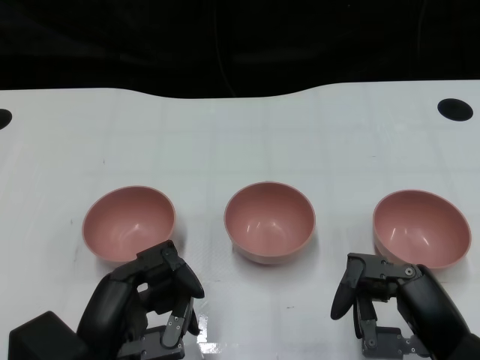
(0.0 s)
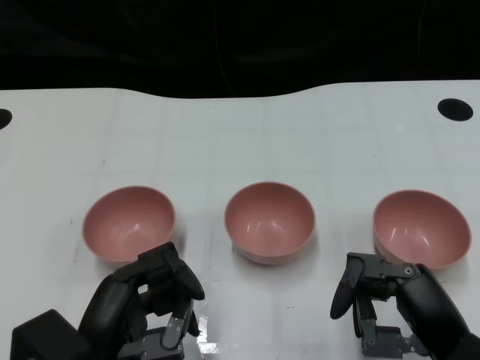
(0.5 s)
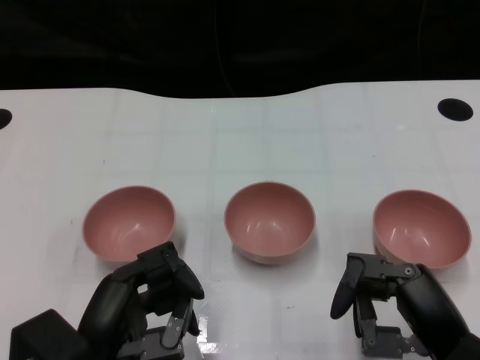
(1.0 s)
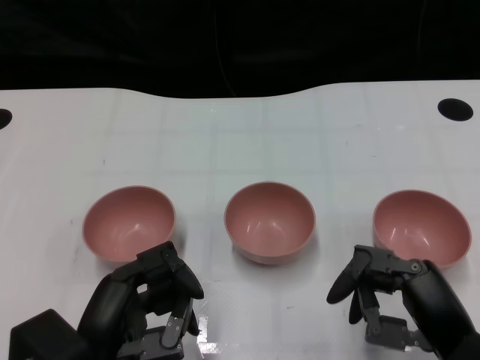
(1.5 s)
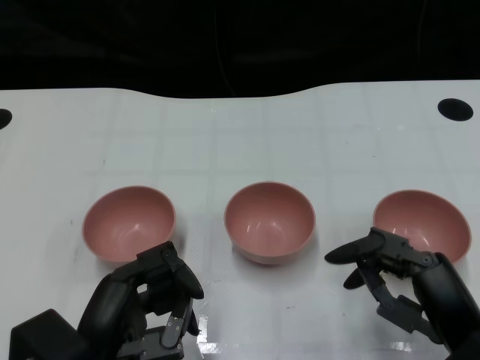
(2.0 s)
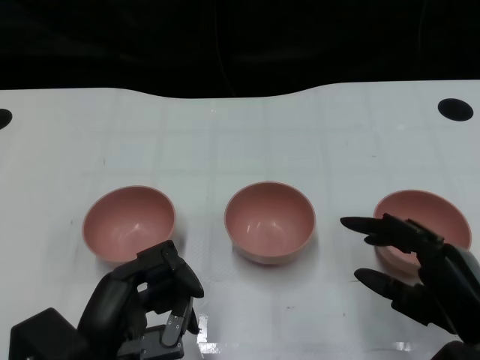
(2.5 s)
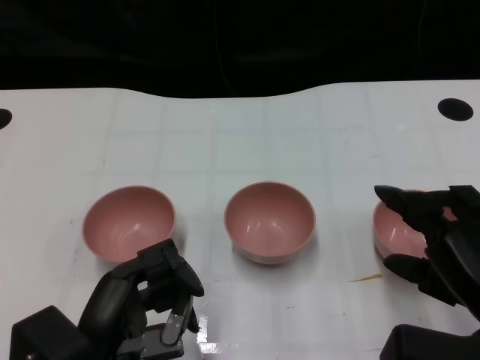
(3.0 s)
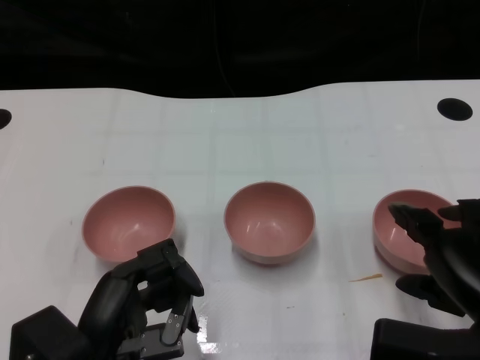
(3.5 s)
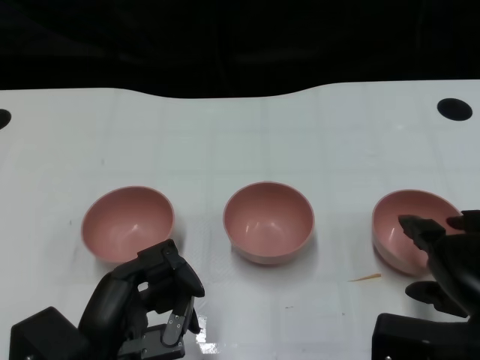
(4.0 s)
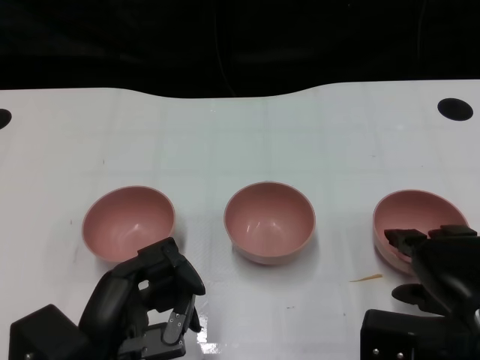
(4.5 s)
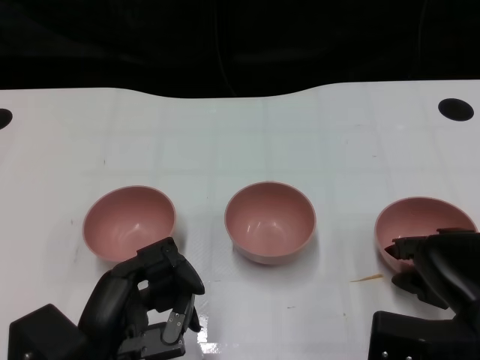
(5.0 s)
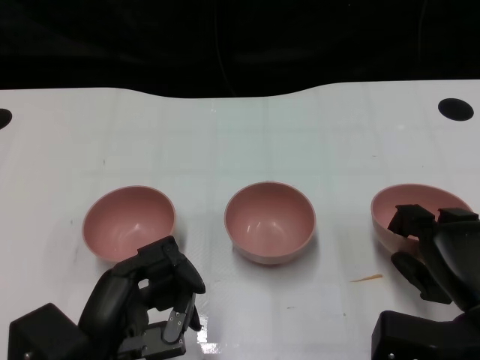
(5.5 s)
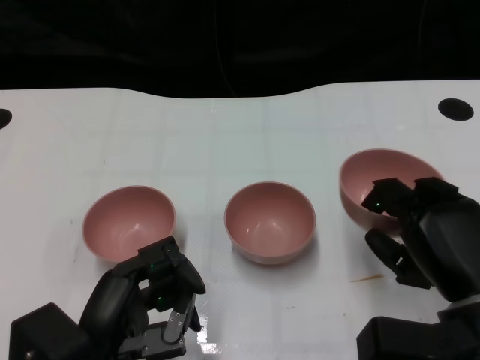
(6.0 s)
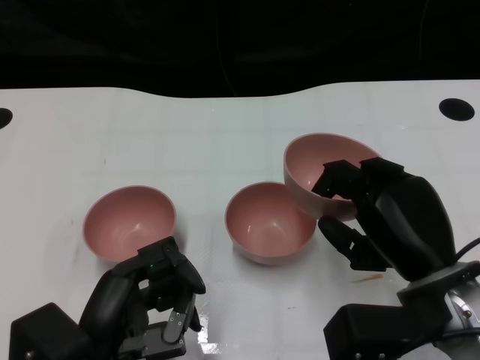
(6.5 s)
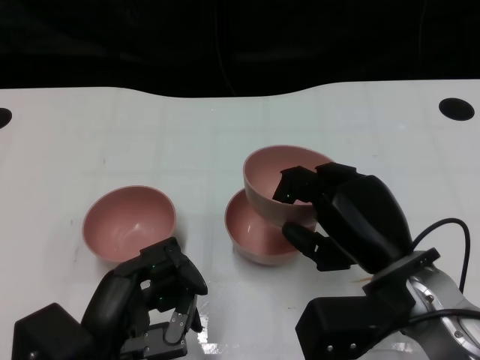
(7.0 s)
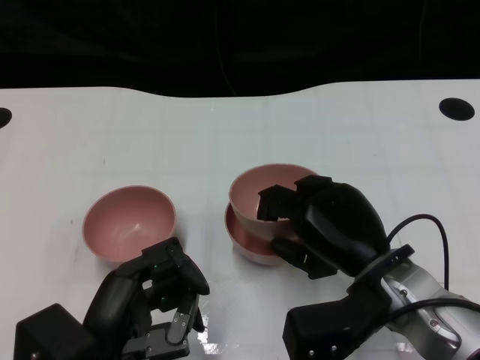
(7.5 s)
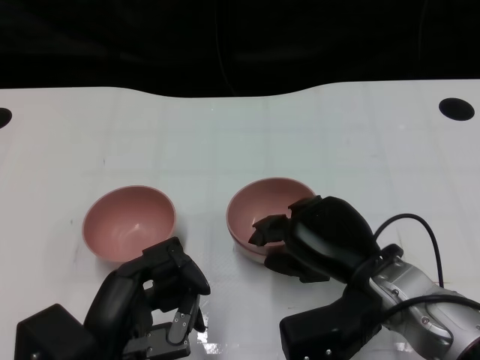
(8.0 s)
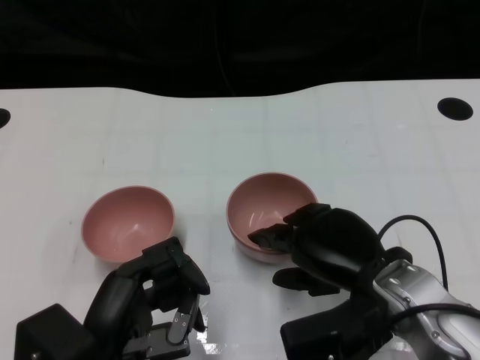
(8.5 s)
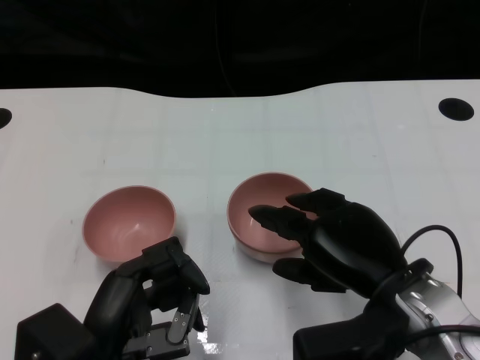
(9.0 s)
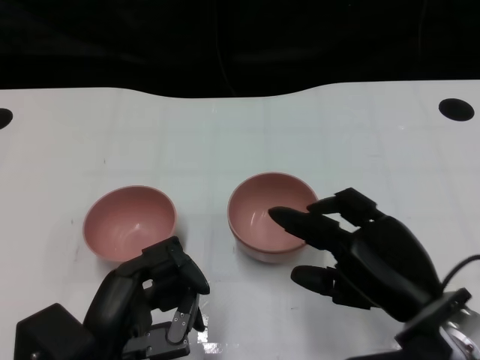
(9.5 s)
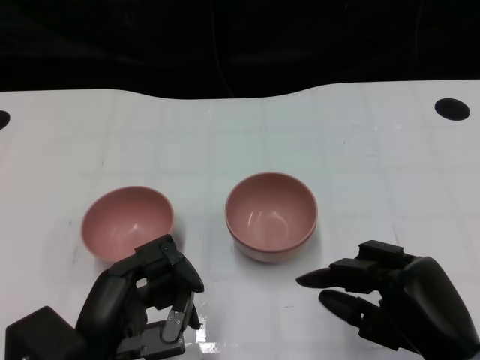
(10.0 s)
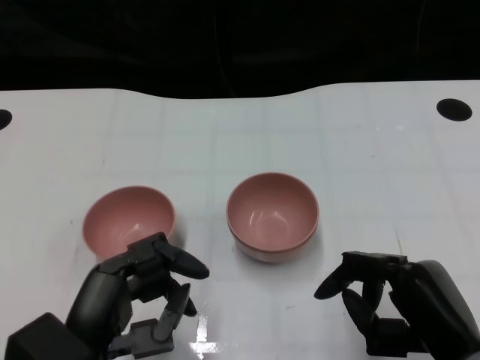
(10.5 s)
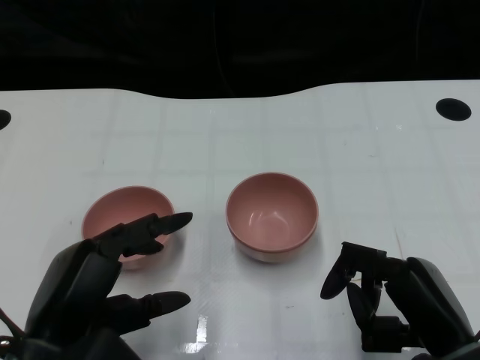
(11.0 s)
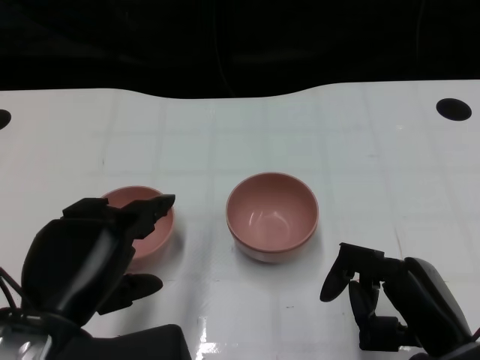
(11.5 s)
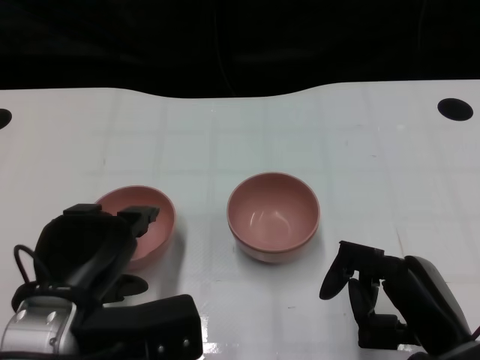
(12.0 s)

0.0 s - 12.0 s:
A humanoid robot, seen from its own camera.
Task of the whole recording: Pick up the bowl on one side of the table and place it on top of the middle bowl, then pick up the bowl on the other side of the table and place it on top of the middle bowls.
Step, 1.5 s - 5.0 s: Grasp the bowl on the right with the right gripper.
Step, 5.5 s - 9.5 s: Place the bowl on the right onto the bowl in the middle with right gripper.
6.0 s - 8.0 s: The right hand moves to the left, some 10 cm.
8.0 s - 10.0 s: The right hand goes some 10 cm backward and to the right.
10.0 s - 12.0 s: The left hand shifts by roughly 5 cm.

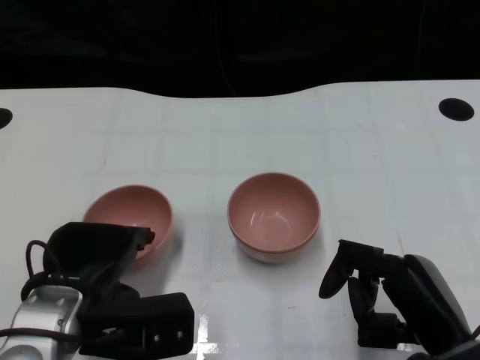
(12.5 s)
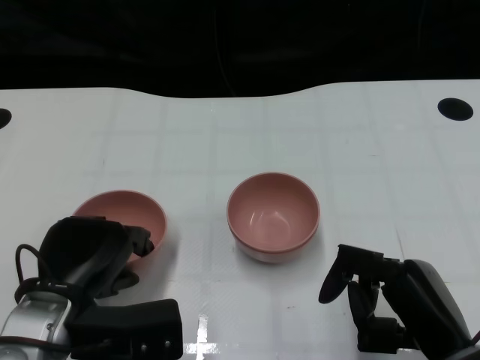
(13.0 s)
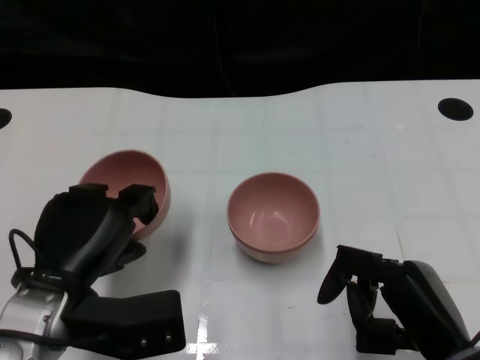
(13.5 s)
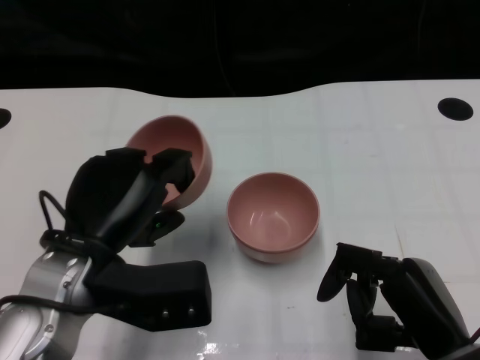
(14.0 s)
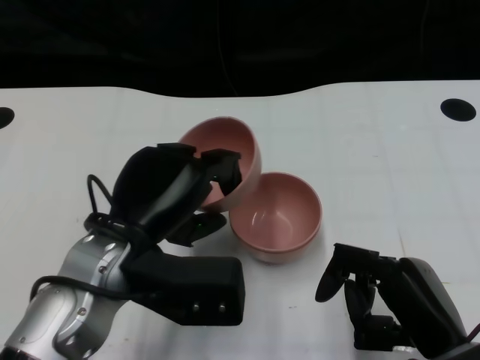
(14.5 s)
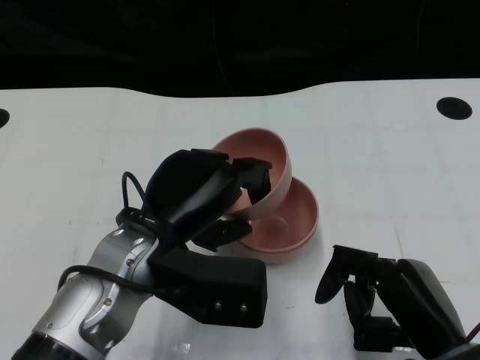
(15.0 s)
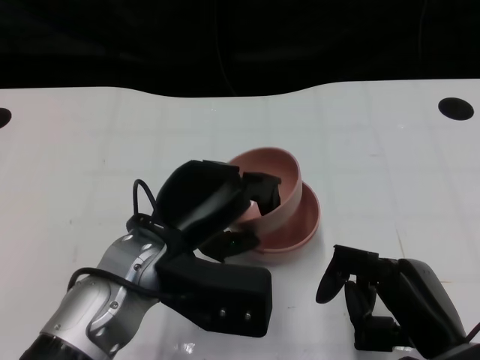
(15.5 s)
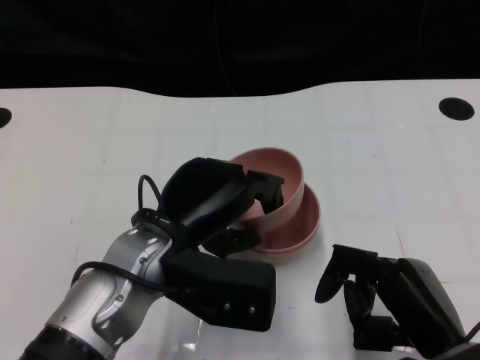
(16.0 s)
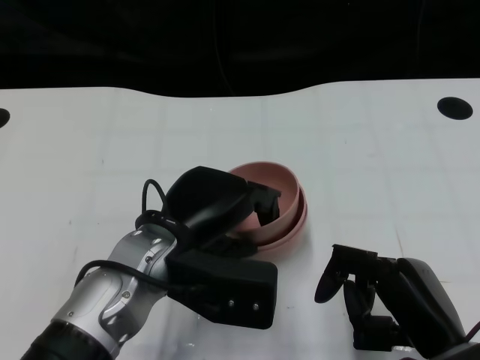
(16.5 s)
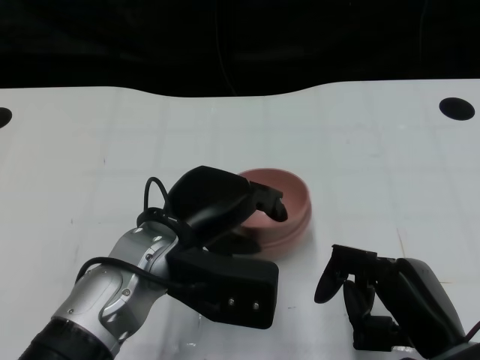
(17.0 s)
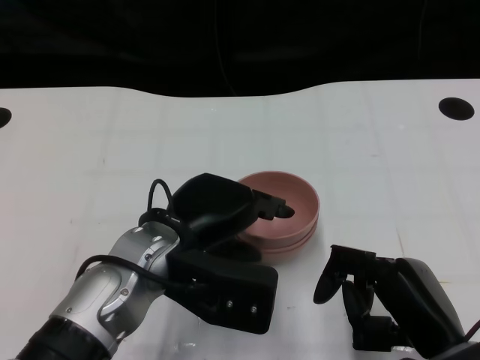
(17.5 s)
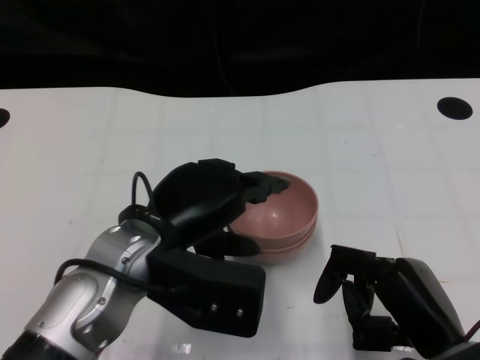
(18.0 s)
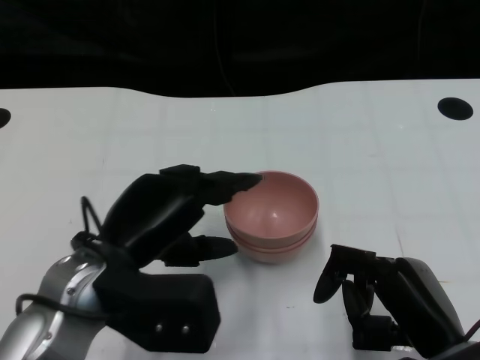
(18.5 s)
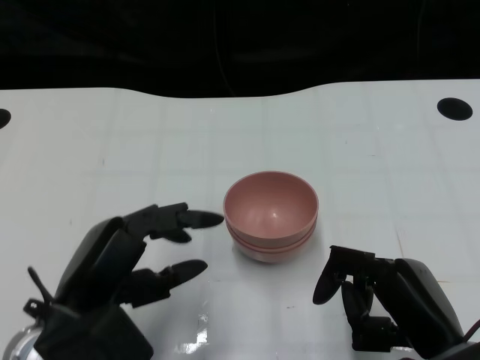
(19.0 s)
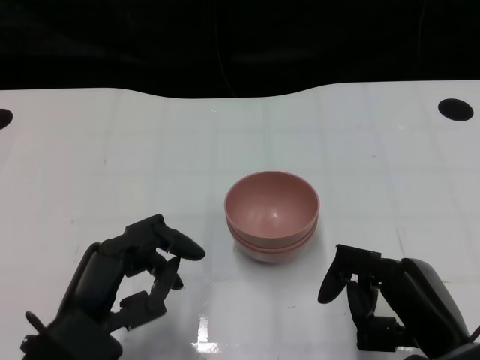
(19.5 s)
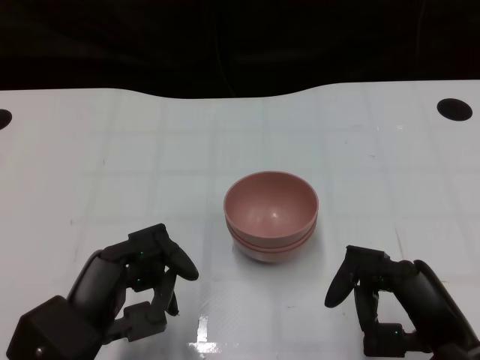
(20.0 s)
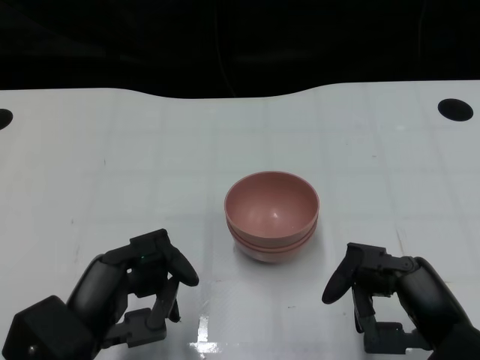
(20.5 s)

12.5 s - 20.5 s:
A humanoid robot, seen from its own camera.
Task of the whole recording: Pick up the bowl on one side of the table and place it on top of the middle bowl, then pick up the bowl on the other side of the table and place it on top of the middle bowls.
Step, 13.5 s - 18.0 s: Place the bowl on the left onto the bowl in the middle with left gripper.
12.5 s - 14.5 s: The left hand shifts by about 10 cm.
16.5 s - 18.5 s: The left hand moves to the left, some 5 cm.
18.5 s - 20.5 s: The left hand travels backward and downward by some 10 cm.

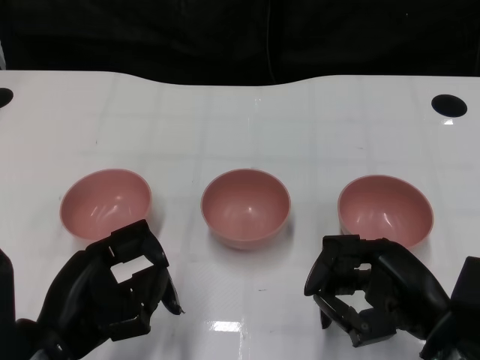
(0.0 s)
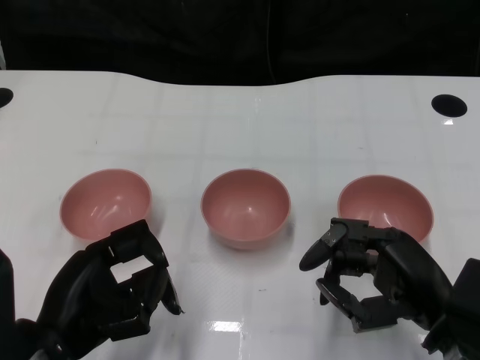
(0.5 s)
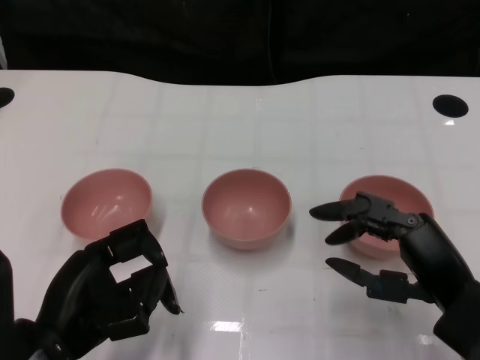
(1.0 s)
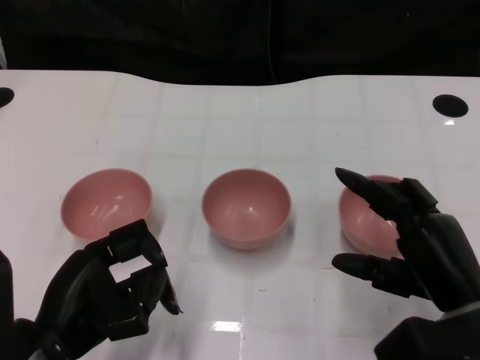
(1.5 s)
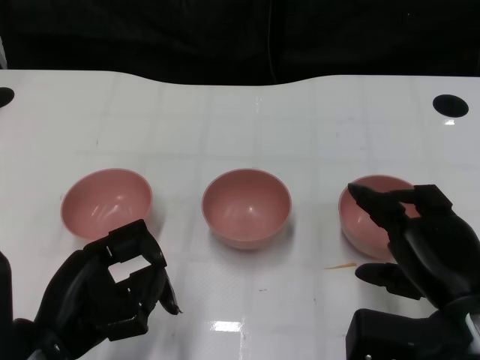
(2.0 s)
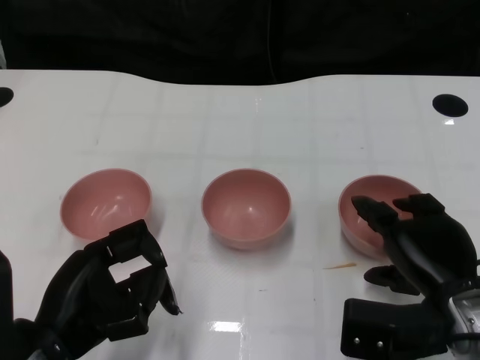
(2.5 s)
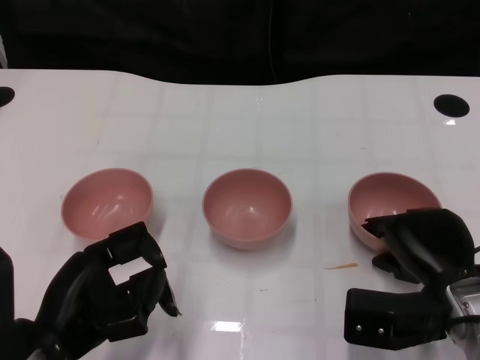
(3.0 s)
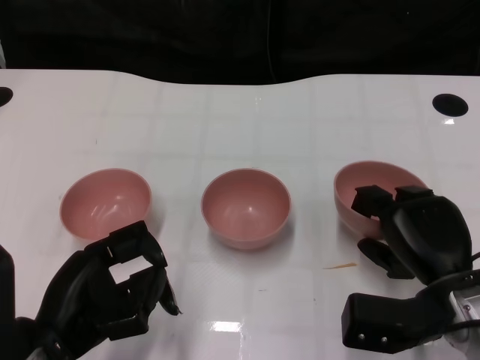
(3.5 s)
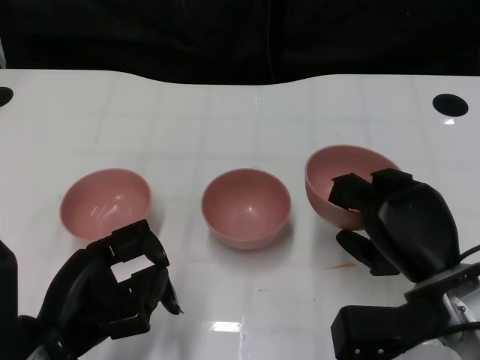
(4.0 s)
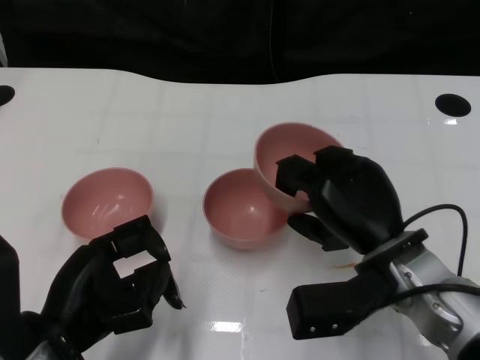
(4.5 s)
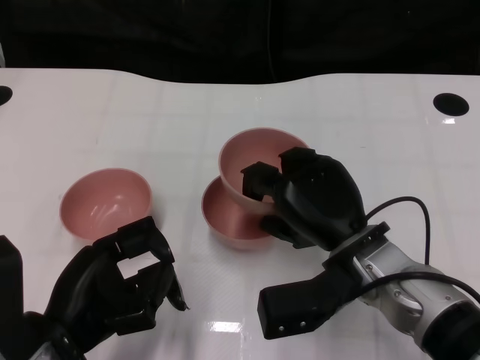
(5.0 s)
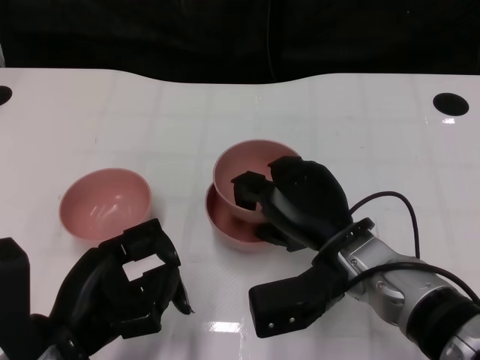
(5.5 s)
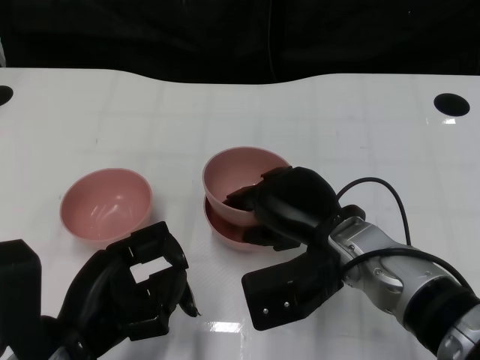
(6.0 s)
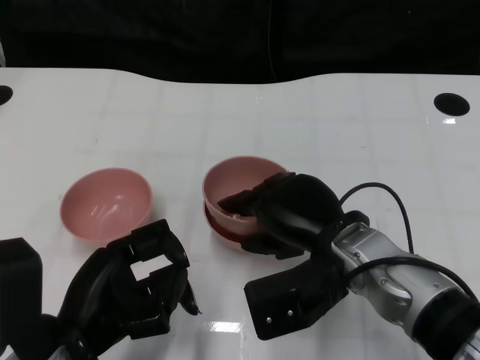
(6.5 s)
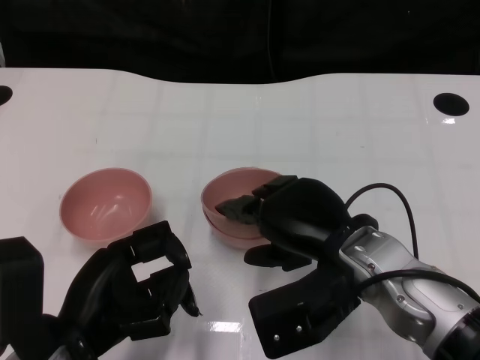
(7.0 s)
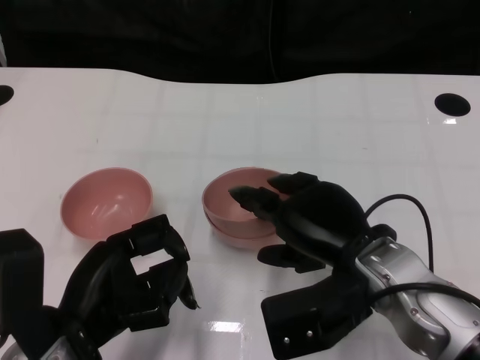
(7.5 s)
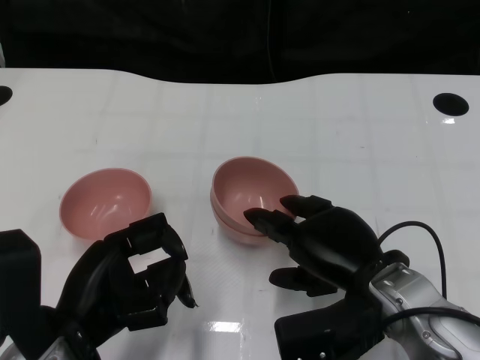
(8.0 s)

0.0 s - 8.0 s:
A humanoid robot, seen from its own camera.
Task of the whole recording: Pick up the bowl on one side of the table and place it on top of the middle bowl, then pick up the bowl on the other side of the table and place it on top of the middle bowls.
Step, 0.0 s - 3.0 s: Grasp the bowl on the right with the right gripper.
2.0 s - 4.0 s: There are only small adjustments of the hands.
4.0 s - 6.0 s: The right hand moves to the left, approximately 10 cm.
6.0 s - 8.0 s: The right hand moves roughly 5 cm.
